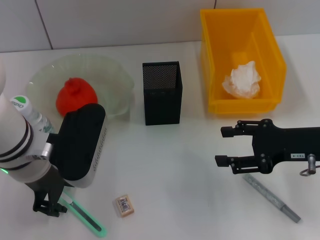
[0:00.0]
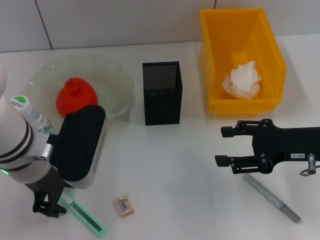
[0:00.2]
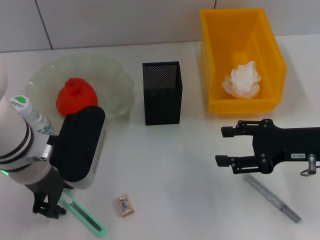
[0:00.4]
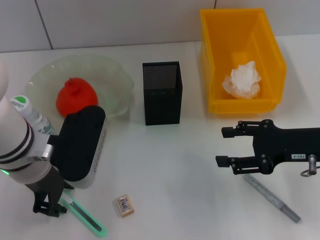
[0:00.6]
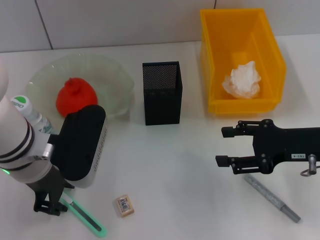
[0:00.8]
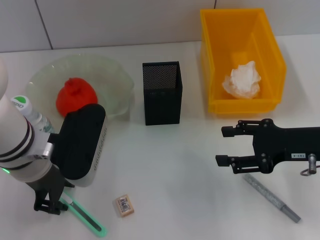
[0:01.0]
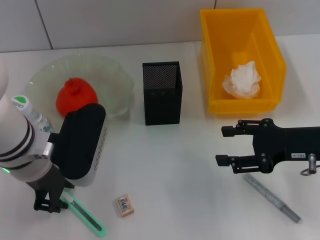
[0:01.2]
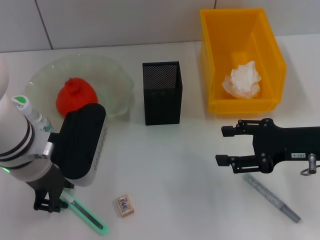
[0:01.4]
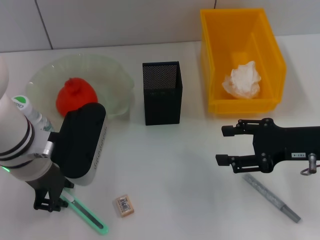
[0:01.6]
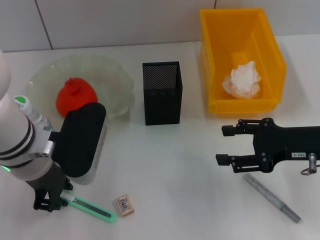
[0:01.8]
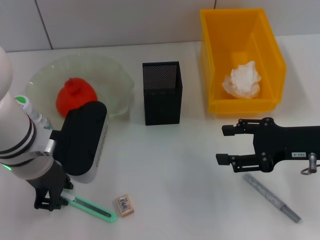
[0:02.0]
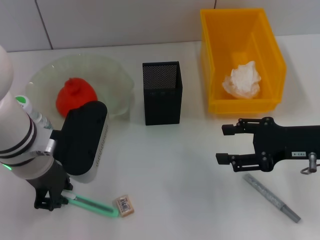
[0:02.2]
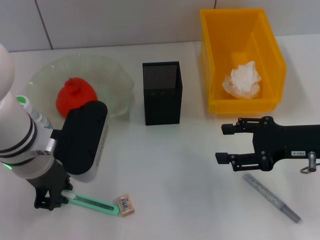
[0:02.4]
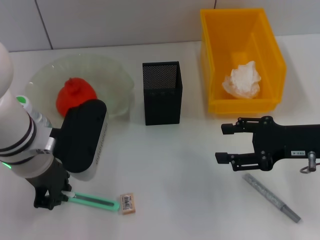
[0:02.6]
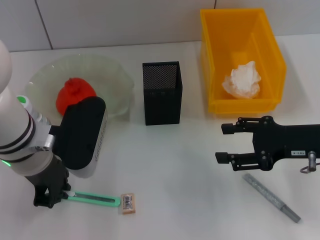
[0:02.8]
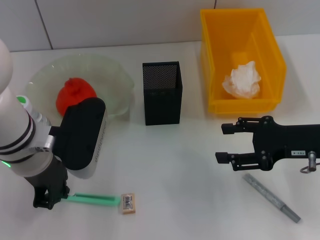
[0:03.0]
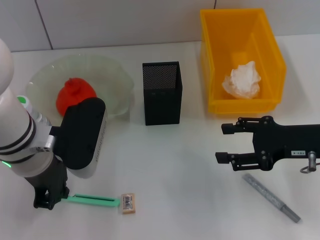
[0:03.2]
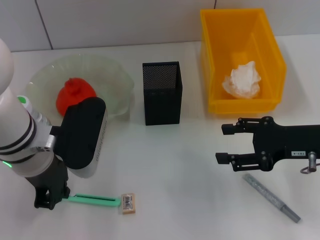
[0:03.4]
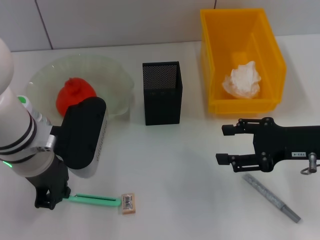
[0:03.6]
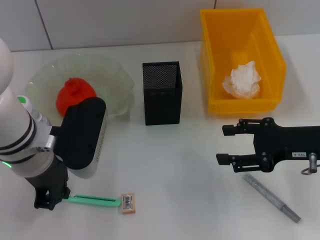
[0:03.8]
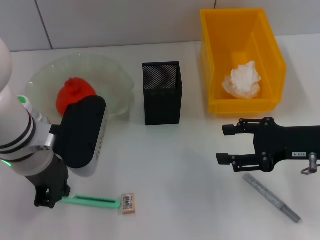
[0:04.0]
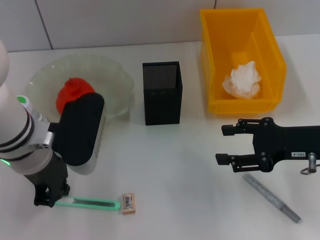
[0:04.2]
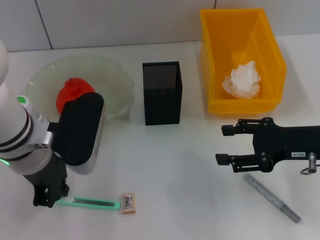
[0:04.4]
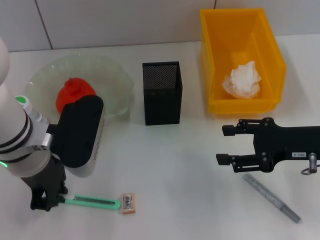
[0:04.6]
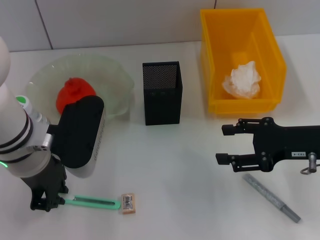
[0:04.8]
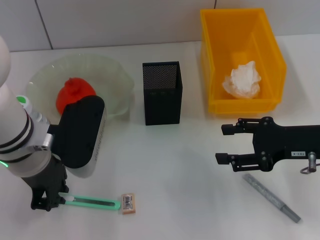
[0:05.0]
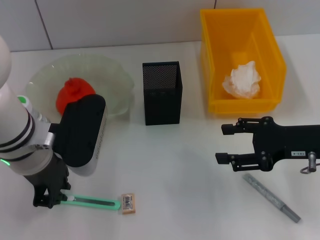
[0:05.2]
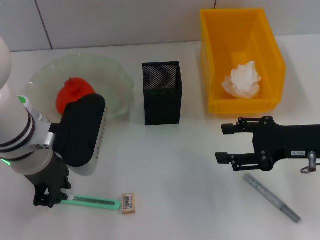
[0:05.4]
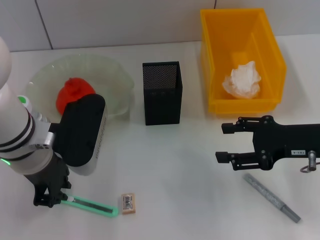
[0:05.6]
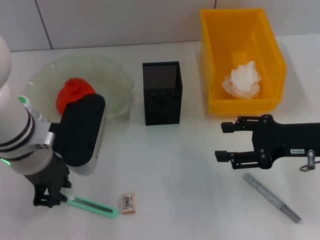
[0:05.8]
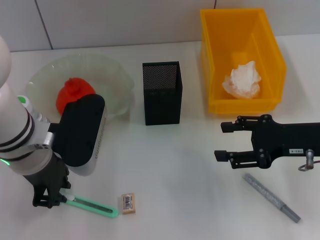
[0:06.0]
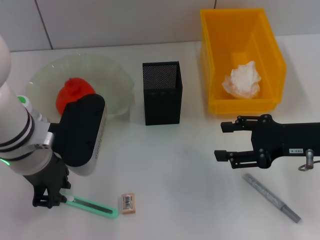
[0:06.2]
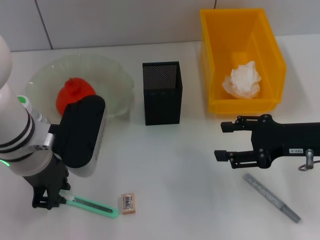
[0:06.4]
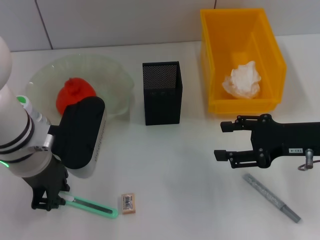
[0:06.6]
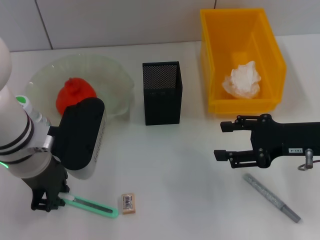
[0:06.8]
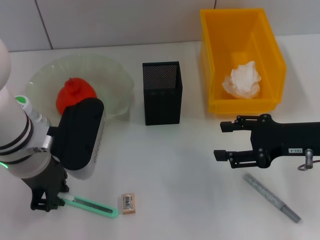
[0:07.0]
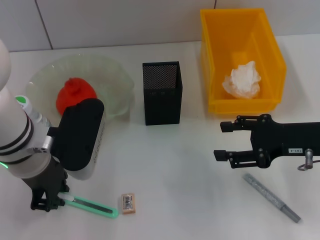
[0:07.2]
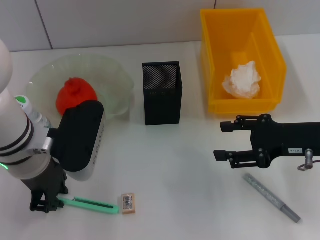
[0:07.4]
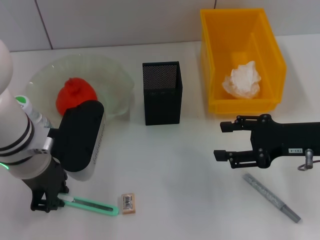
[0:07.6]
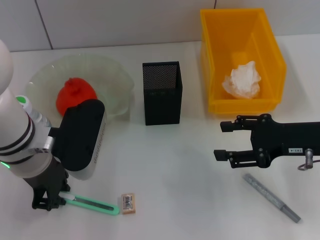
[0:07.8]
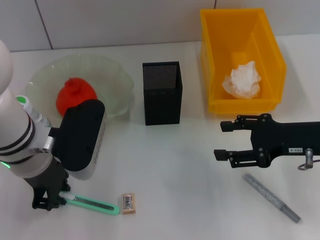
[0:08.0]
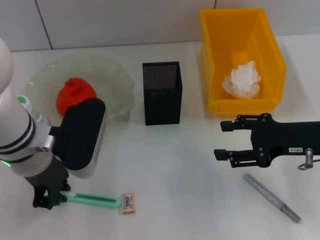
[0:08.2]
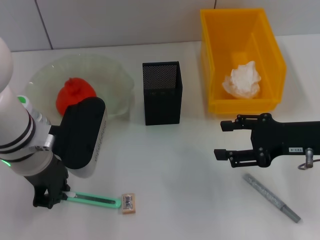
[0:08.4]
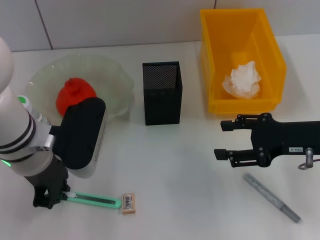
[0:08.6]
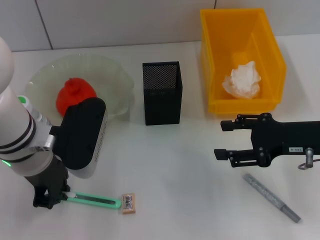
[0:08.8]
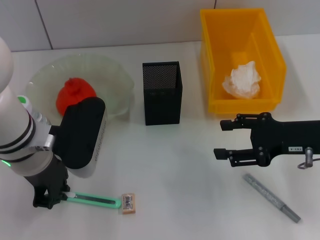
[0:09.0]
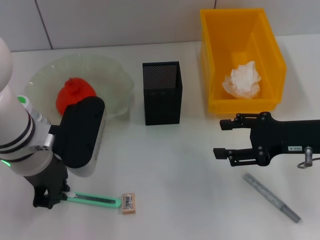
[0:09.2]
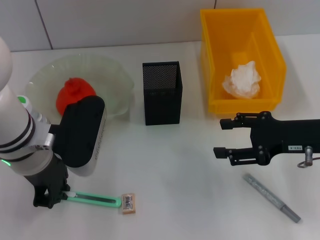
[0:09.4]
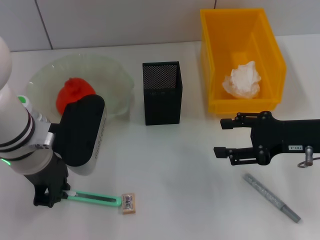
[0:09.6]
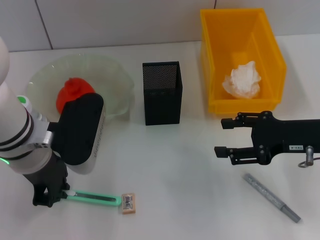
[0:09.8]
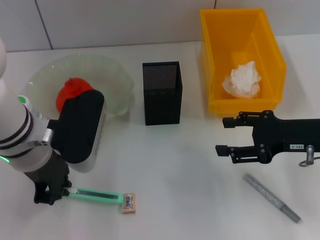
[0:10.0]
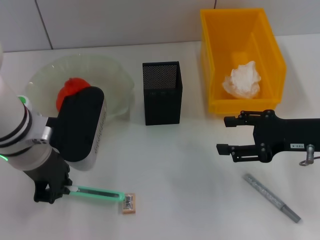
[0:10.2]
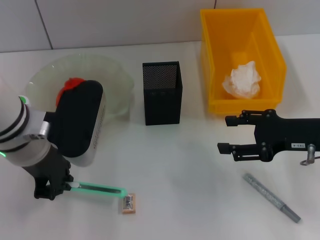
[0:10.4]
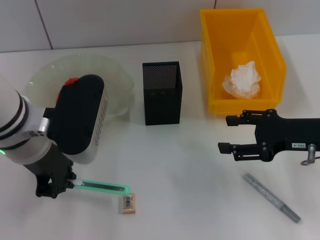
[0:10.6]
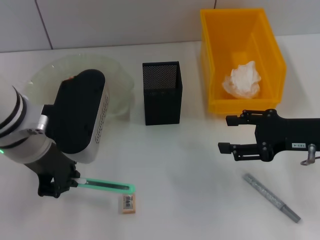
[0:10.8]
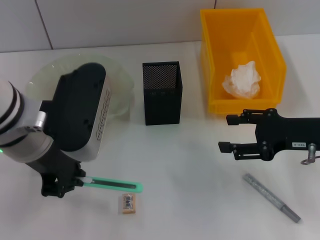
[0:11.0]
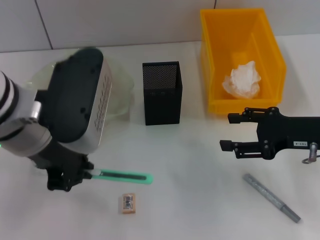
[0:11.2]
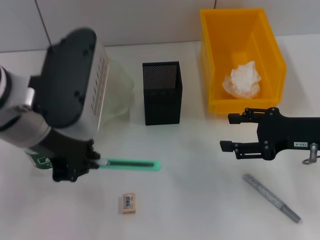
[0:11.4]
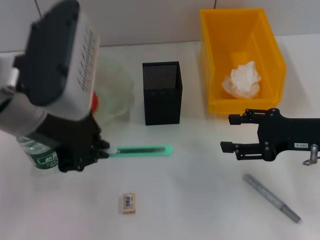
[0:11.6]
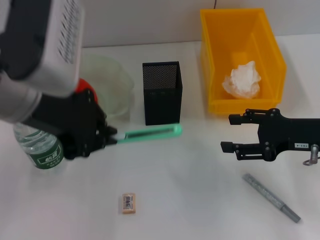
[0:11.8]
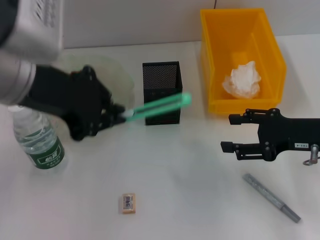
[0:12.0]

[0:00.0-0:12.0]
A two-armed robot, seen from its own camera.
Step, 0:00.0 to 0:09.4: Grab the blue utility knife with the left hand.
0:00.0 to 0:01.6: The two grippers keep their place.
0:01.6 to 0:03.0: The left gripper closes.
0:03.0 to 0:09.0: The two grippers keep their place.
0:09.0 to 0:10.4: The grippers stay close to where they were, moving slightly.
0:10.4 to 0:12.0: The left gripper shifts some 10 cm upward.

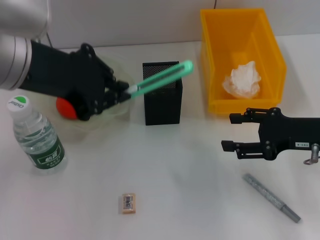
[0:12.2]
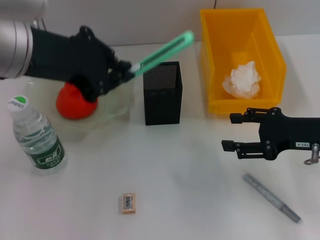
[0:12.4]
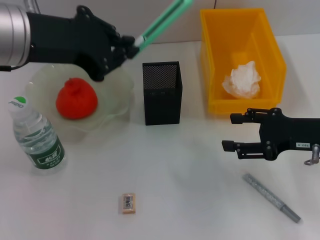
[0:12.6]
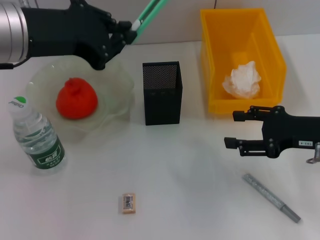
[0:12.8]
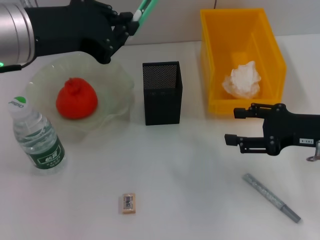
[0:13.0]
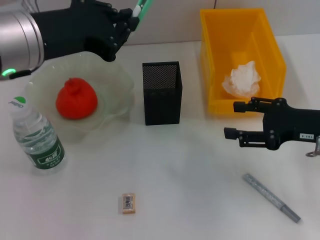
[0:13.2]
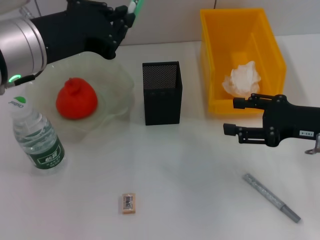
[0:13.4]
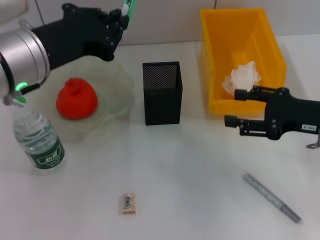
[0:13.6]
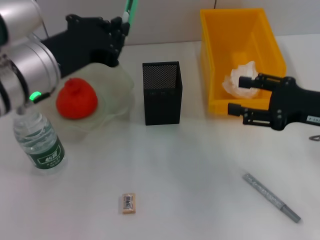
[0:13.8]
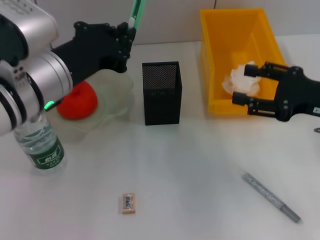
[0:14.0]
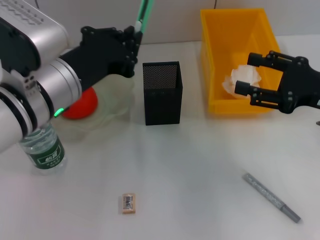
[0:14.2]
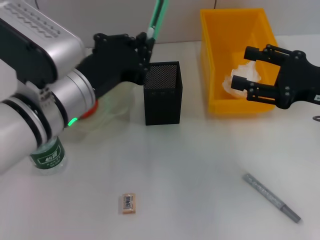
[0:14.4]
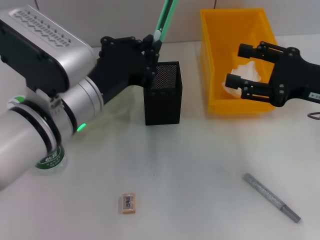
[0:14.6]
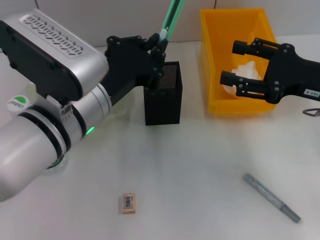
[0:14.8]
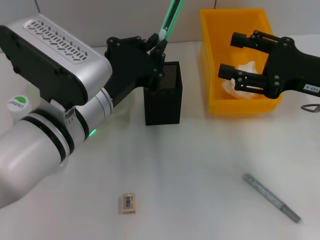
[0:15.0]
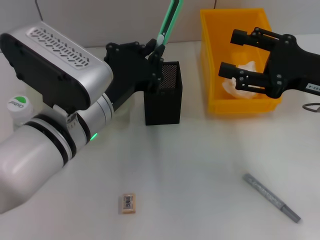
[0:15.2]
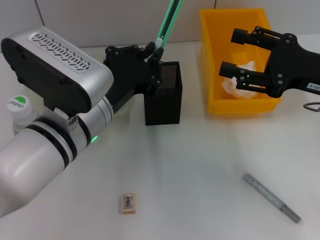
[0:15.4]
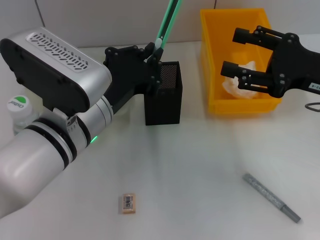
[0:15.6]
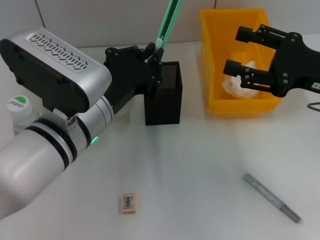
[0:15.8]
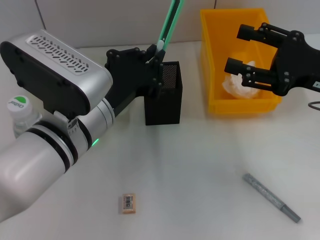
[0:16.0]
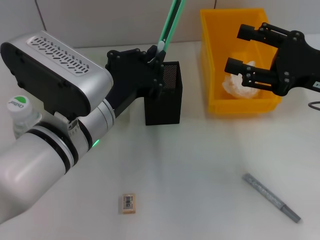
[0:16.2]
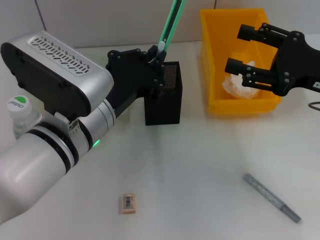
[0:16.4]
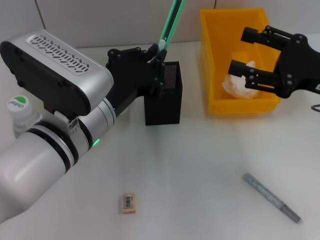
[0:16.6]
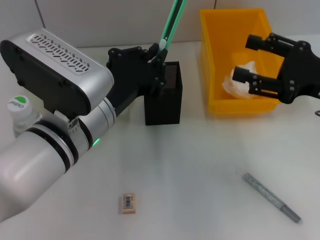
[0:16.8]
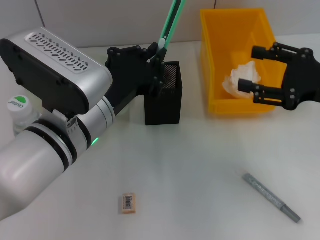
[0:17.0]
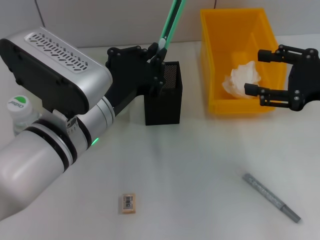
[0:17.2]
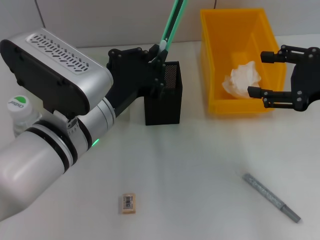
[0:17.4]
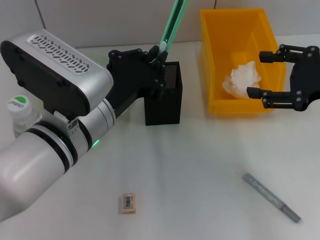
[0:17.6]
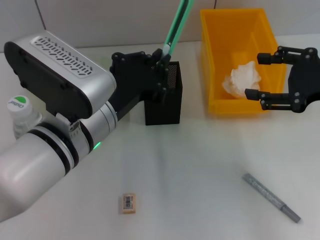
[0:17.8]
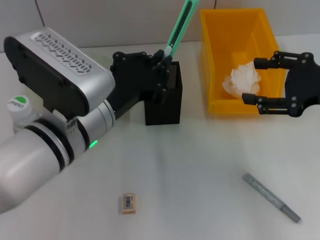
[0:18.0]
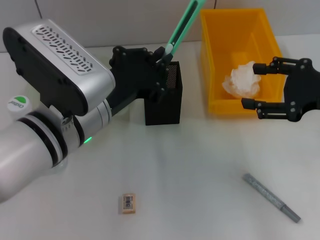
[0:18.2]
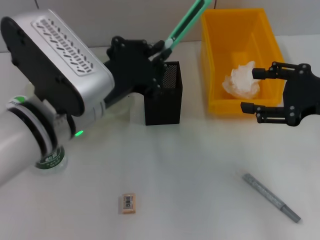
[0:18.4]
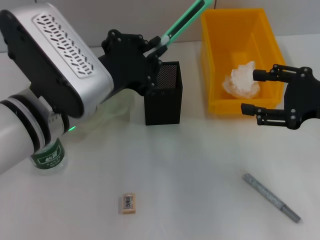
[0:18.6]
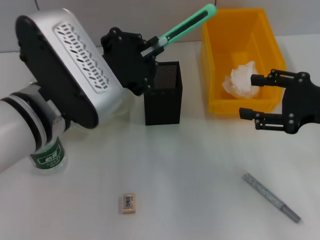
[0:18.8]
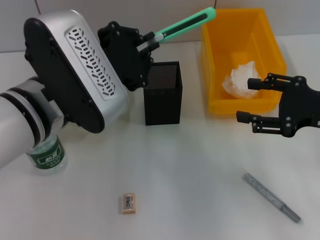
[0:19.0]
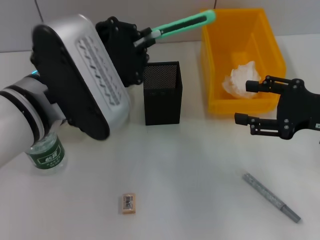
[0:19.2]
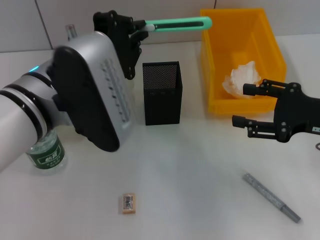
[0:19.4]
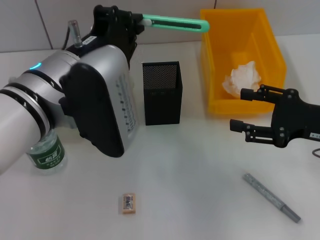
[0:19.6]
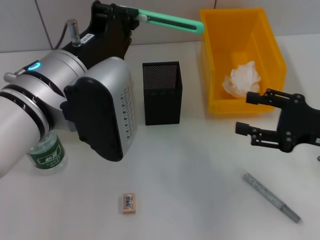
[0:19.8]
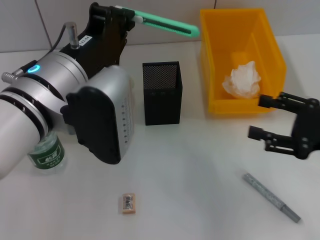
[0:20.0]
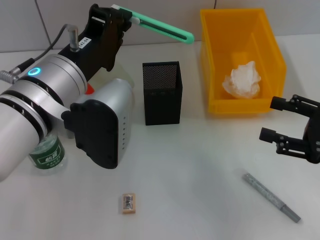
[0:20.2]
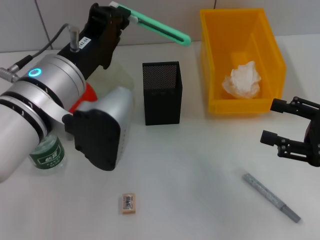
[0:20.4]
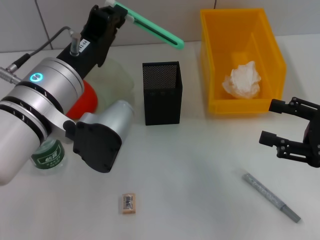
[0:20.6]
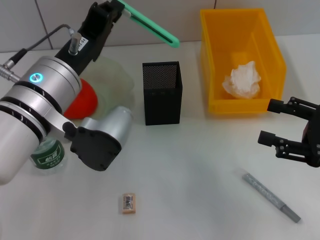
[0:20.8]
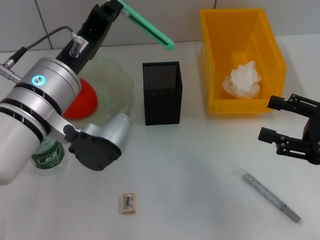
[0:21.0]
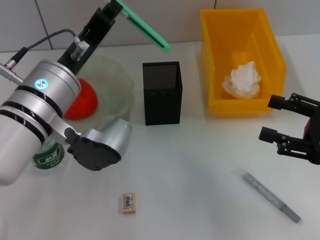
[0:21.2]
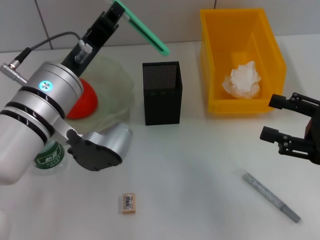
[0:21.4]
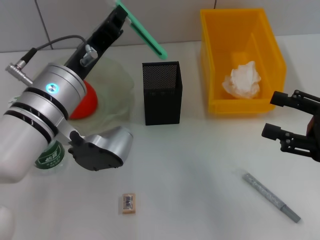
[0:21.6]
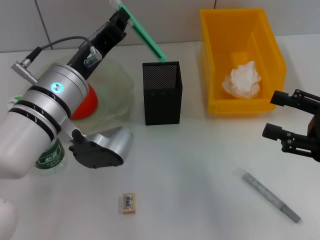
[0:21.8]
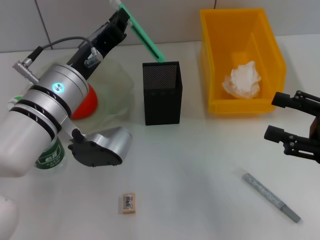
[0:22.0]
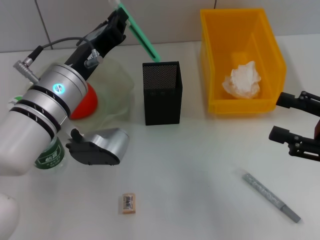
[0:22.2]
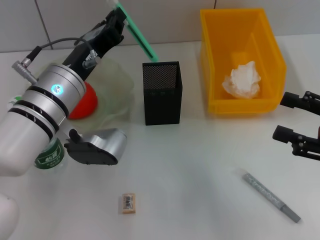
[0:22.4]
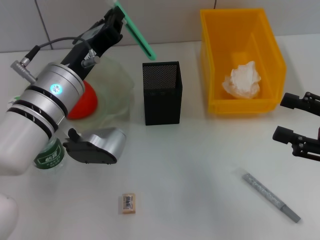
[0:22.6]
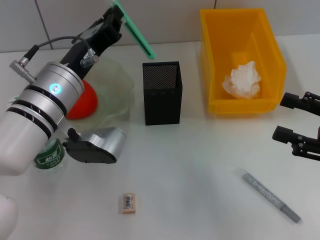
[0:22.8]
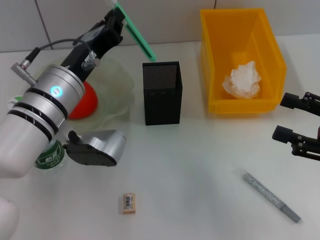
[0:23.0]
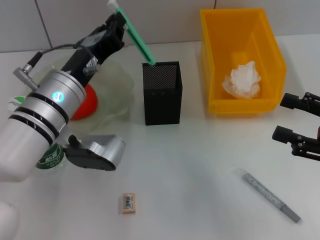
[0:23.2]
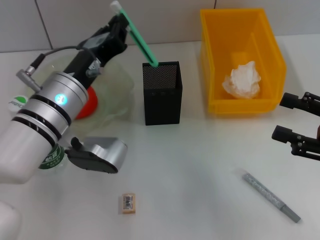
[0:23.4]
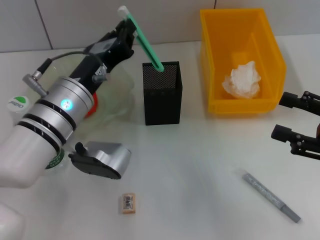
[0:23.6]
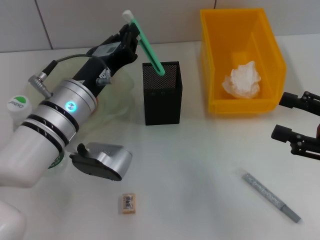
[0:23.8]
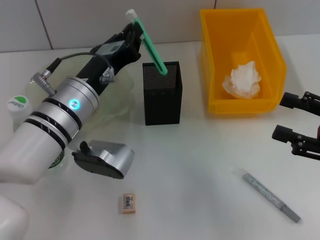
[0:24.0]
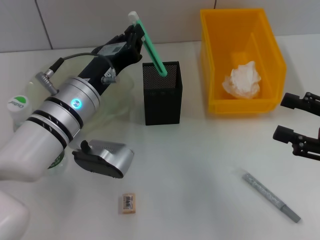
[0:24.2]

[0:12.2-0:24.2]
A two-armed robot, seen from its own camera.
0:12.2 to 0:13.8: The left gripper is displaced downward by roughly 10 cm.
0:13.8 to 0:15.2: The left gripper goes approximately 5 cm to the right.
0:15.2 to 0:16.6: The two grippers keep their place.
0:18.2 to 0:19.8: The right gripper travels downward by about 5 cm.
0:21.2 to 0:22.6: The grippers make only small movements.
0:22.6 to 0:24.2: The grippers stay close to where they were, moving slightly.
